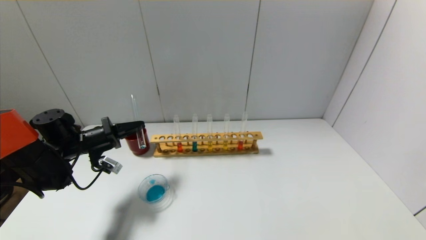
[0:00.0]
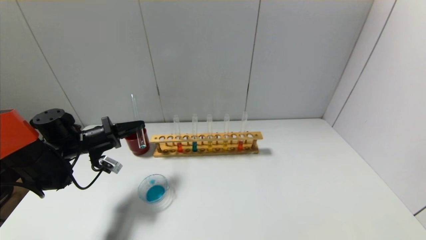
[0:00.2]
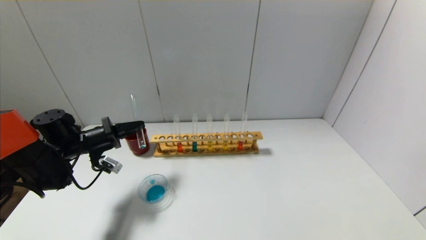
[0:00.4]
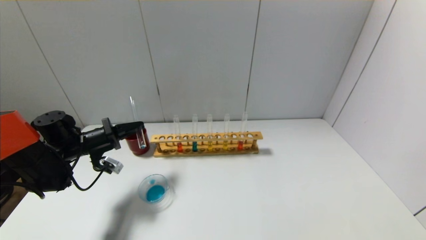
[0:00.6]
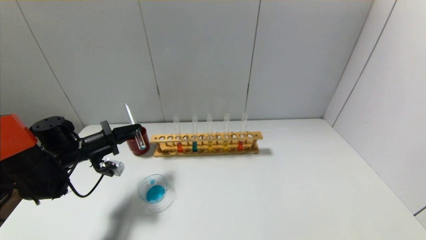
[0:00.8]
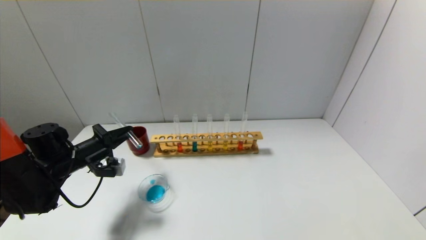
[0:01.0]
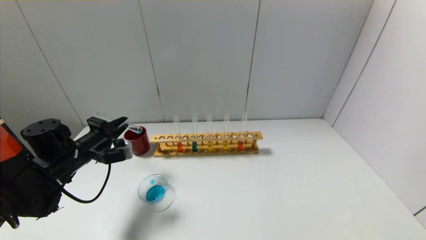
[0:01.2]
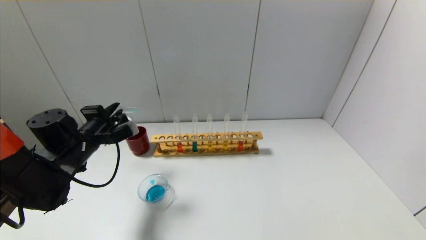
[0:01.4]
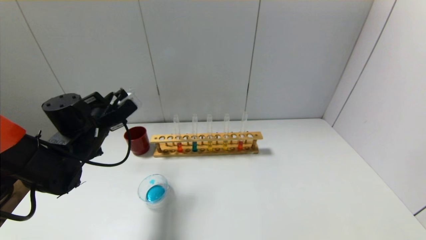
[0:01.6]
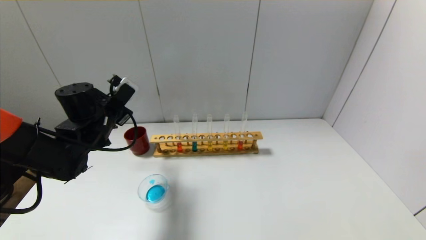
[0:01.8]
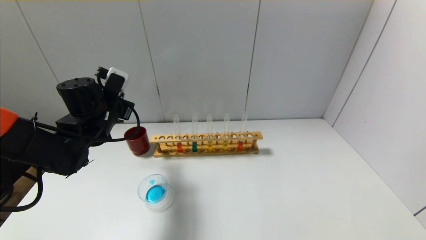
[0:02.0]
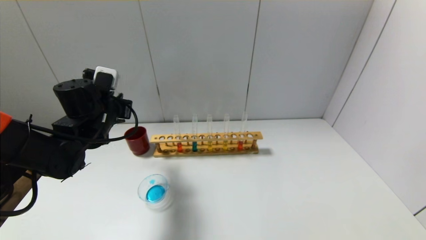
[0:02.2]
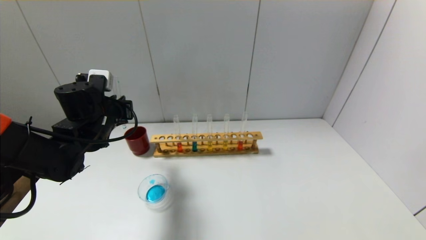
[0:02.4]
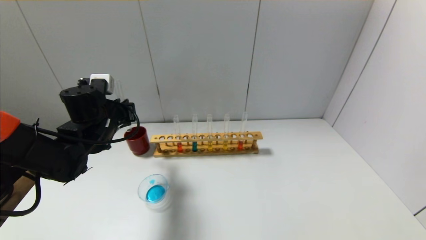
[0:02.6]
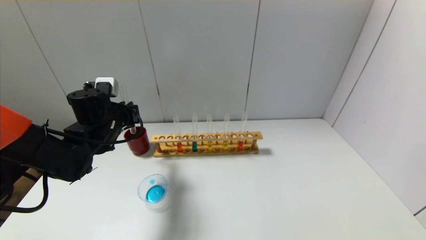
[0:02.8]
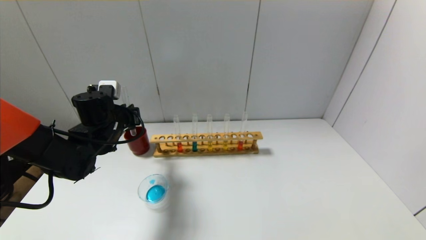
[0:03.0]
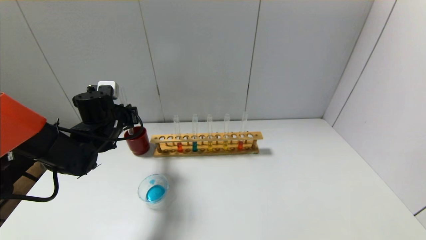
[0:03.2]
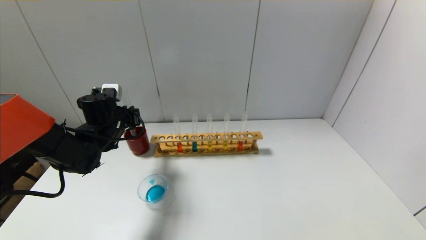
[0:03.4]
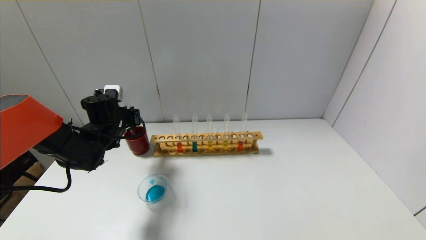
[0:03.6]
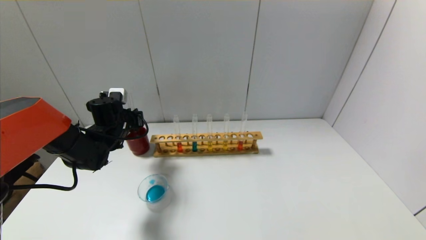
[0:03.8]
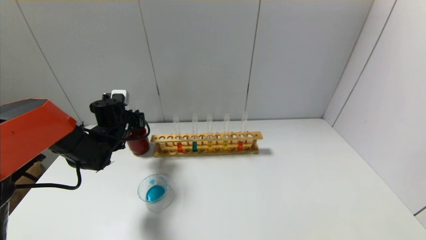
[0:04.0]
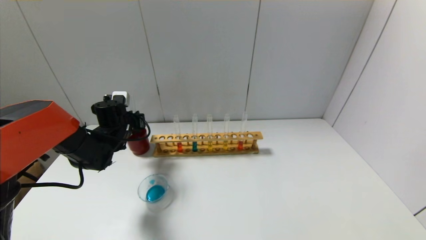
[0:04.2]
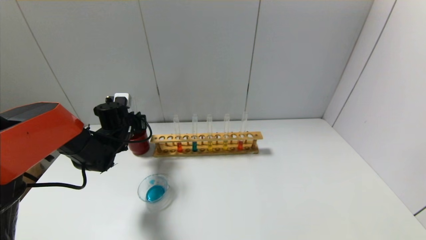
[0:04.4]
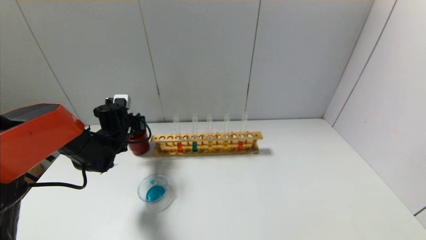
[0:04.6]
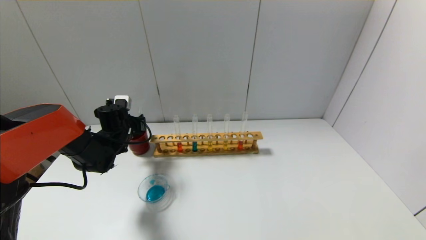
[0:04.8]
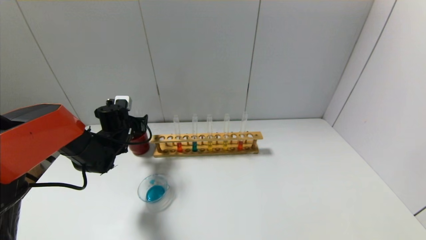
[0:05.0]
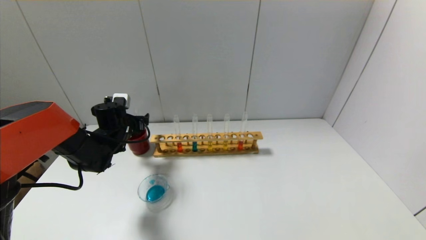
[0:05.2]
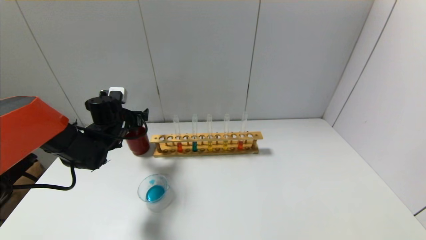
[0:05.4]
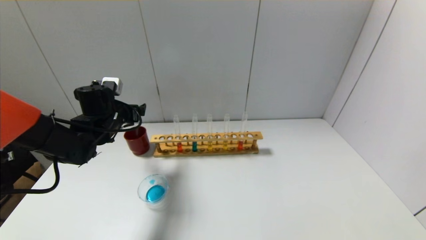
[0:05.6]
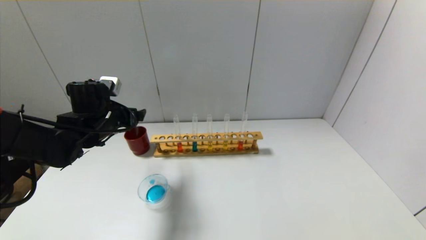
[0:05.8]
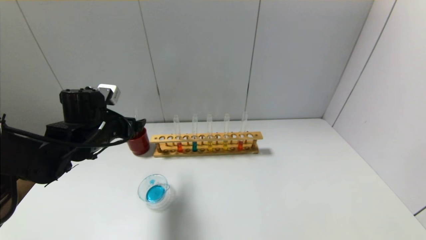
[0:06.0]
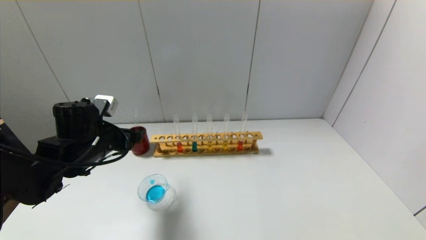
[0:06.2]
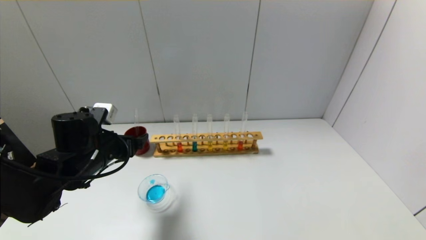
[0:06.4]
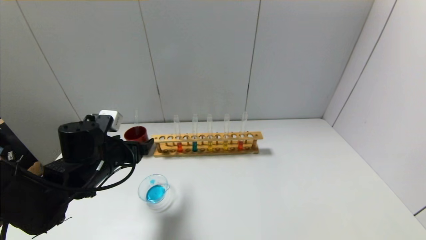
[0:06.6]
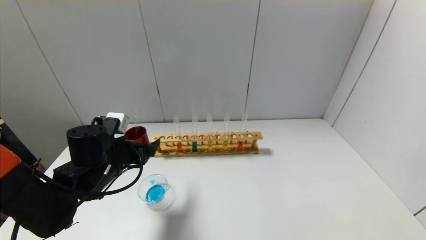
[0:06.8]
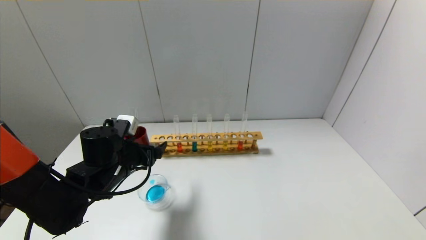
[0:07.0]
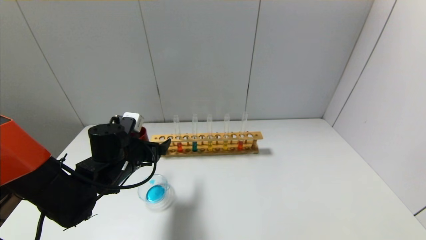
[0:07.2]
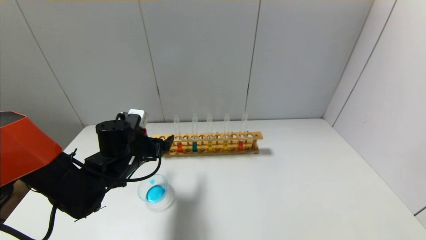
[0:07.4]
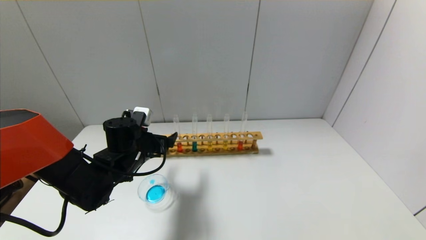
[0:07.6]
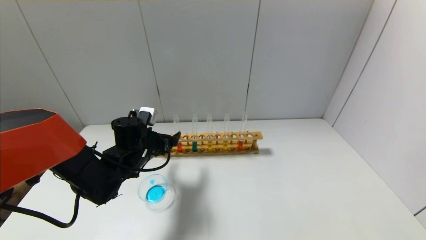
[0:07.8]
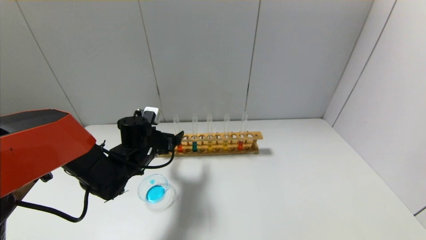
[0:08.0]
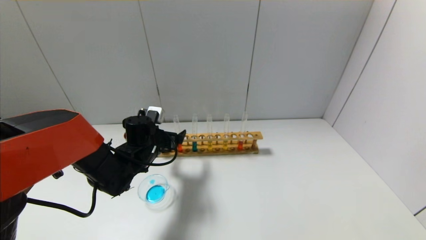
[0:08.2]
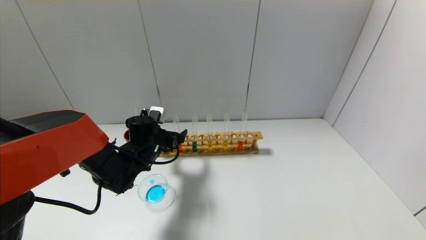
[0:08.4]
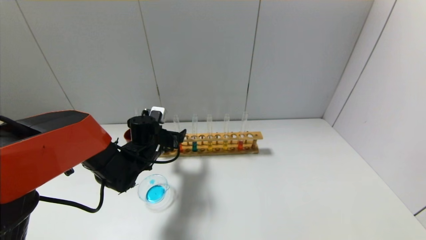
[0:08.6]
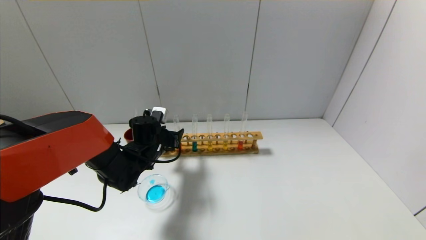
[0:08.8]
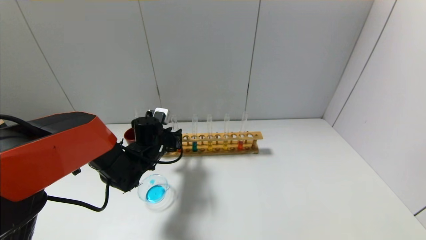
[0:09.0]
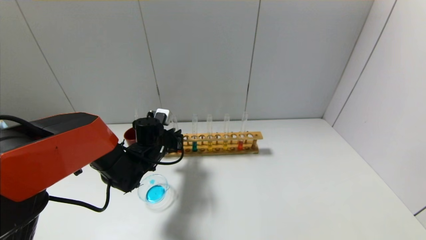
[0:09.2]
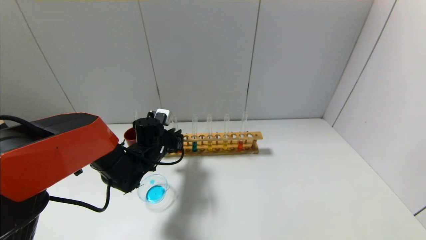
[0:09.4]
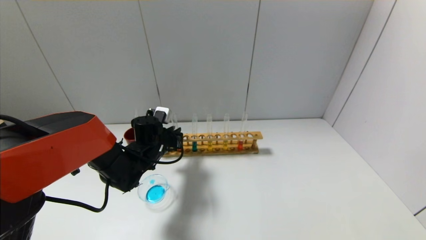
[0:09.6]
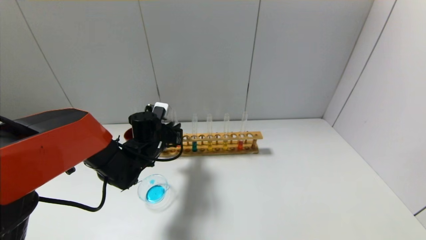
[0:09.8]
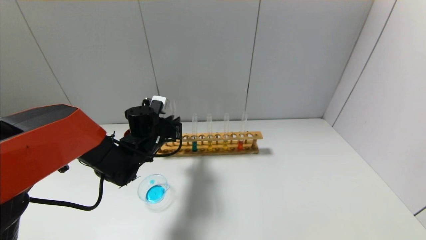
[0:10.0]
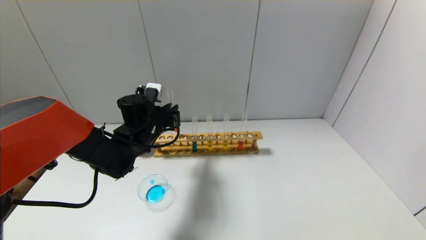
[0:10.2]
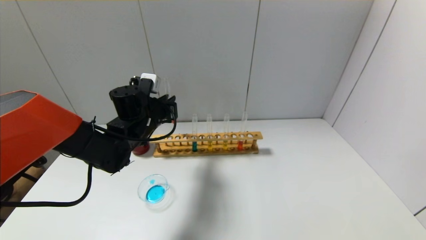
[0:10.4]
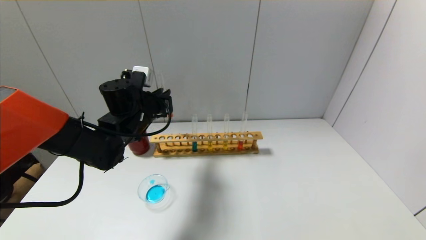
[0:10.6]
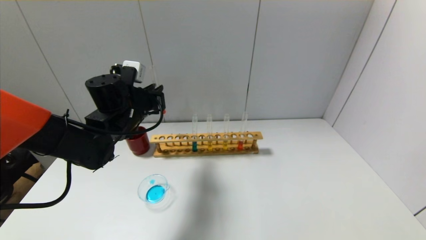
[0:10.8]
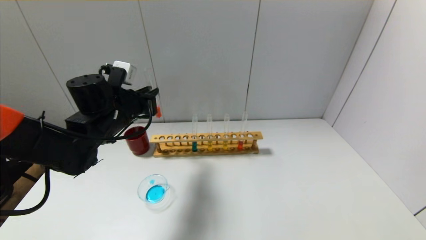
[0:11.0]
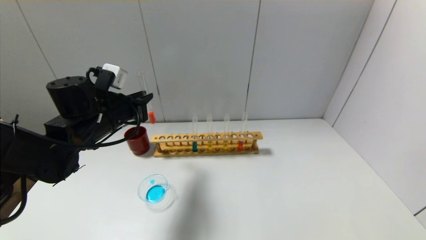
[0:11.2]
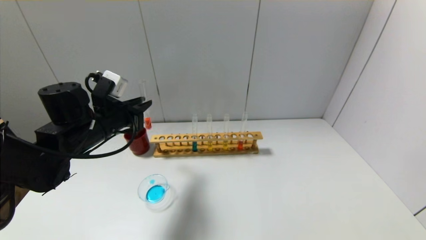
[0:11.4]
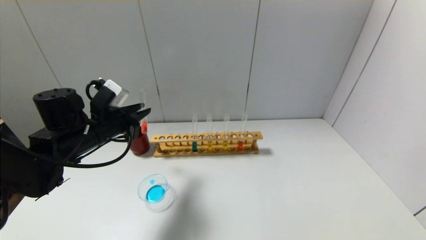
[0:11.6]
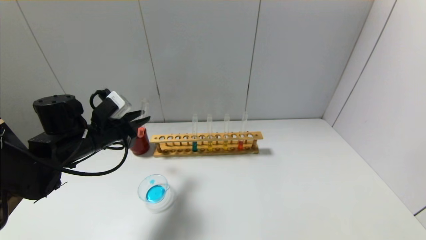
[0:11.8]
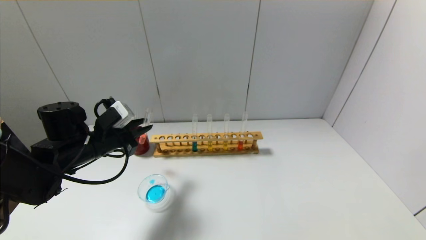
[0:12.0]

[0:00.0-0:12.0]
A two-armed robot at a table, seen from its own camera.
Step, 1.2 to 4.8 s: Place the test tube into the brown cup with the left gripper.
Step, 5.0 to 9.2 s: Grasp the red reagent with the left gripper.
0.0 to 1.6 s: The left gripper travels to the right and upward by about 10 cm.
3.0 to 4.4 s: The left gripper moves forward and downward, roughly 10 cm.
4.4 to 6.0 s: The left gripper is displaced backward and upward by about 15 cm, and opens up.
6.0 to 7.6 s: The left gripper heads downward and to the right, covering some 10 cm.
7.6 to 9.0 s: The left gripper heads forward, covering about 5 cm, and closes up.
9.0 to 10.4 s: The left gripper goes approximately 10 cm upward.
10.4 to 12.0 s: The left gripper heads to the left and backward, covering about 10 cm.

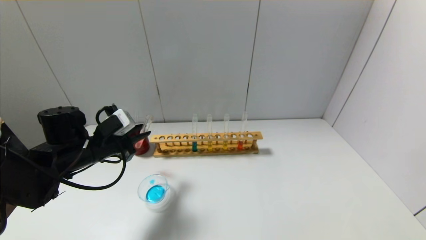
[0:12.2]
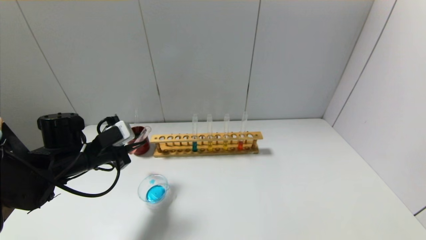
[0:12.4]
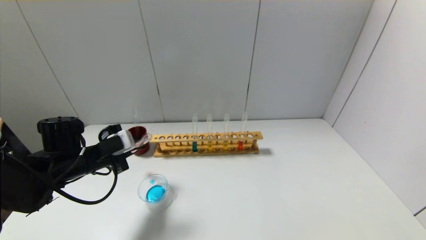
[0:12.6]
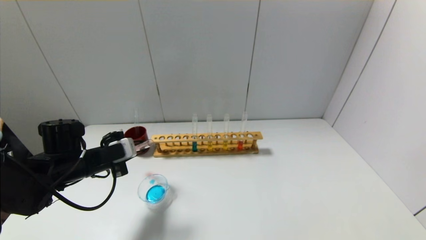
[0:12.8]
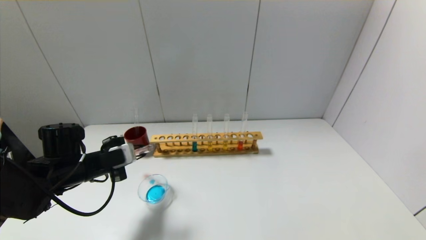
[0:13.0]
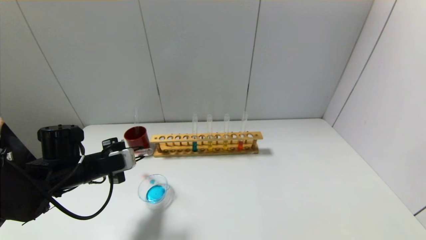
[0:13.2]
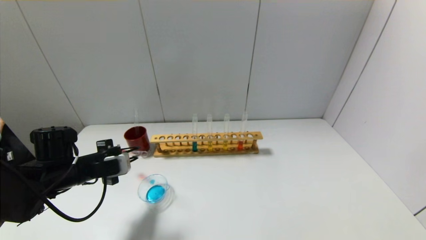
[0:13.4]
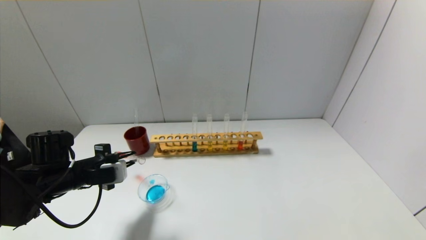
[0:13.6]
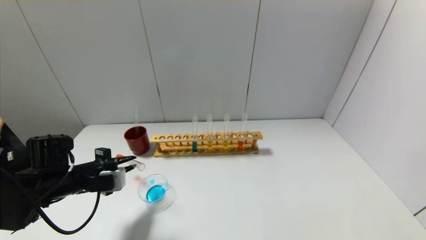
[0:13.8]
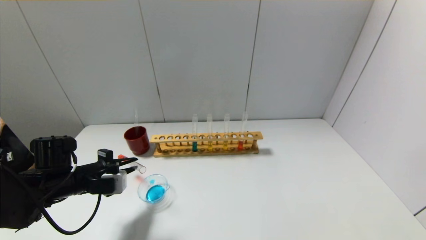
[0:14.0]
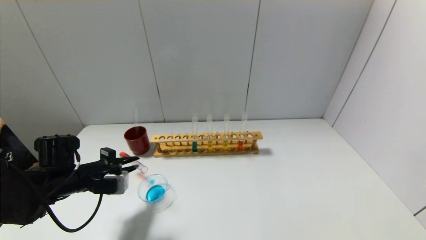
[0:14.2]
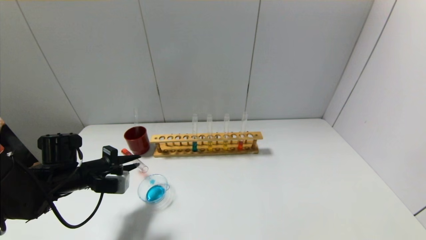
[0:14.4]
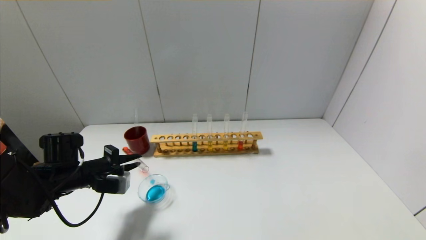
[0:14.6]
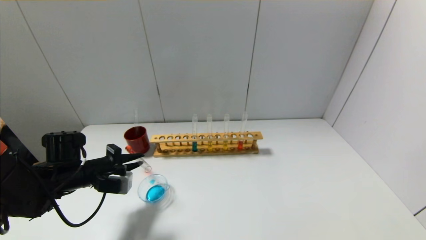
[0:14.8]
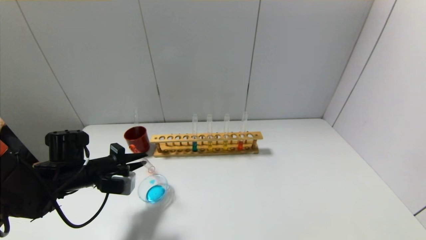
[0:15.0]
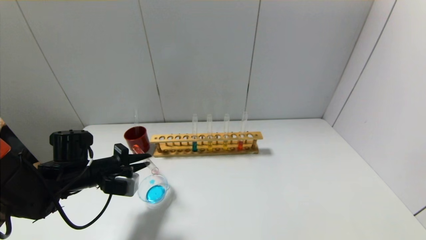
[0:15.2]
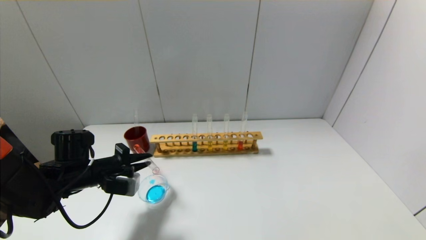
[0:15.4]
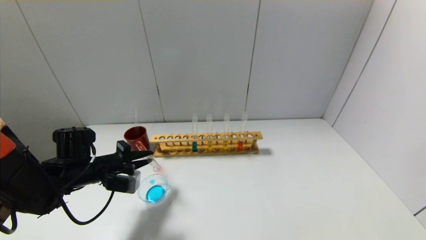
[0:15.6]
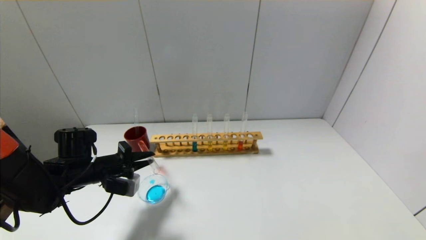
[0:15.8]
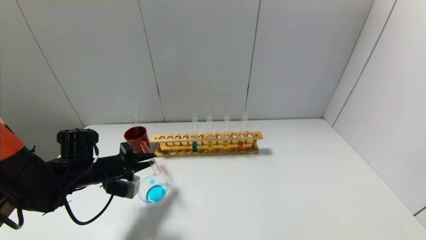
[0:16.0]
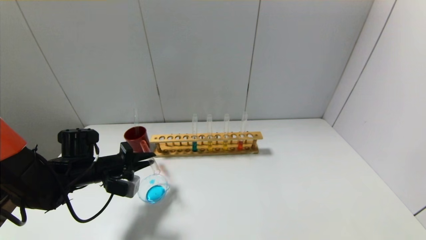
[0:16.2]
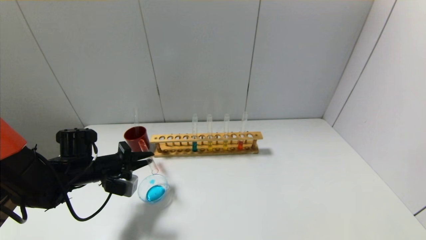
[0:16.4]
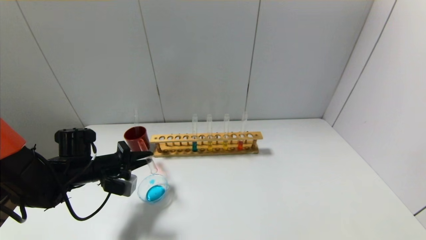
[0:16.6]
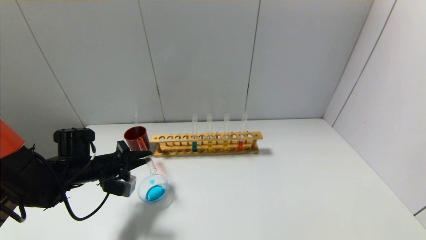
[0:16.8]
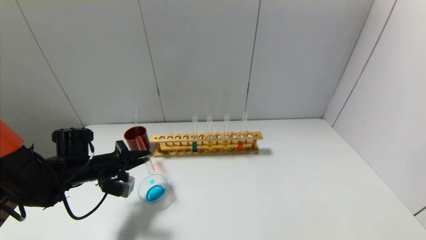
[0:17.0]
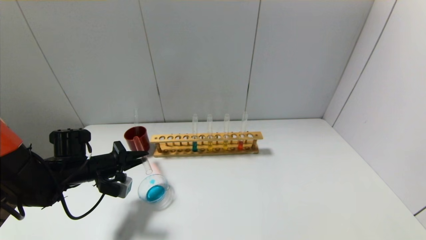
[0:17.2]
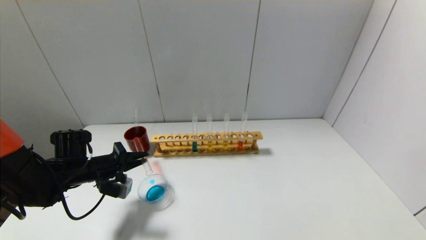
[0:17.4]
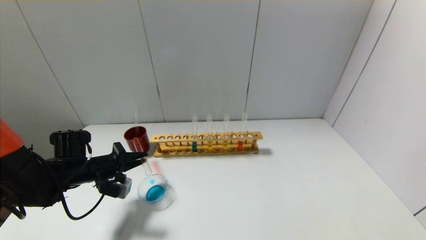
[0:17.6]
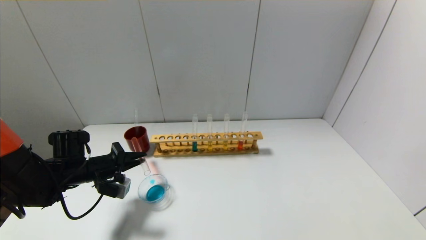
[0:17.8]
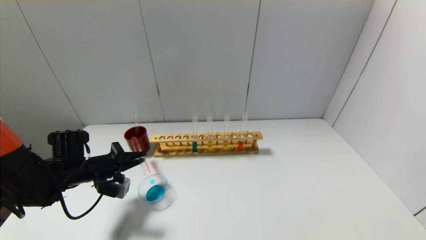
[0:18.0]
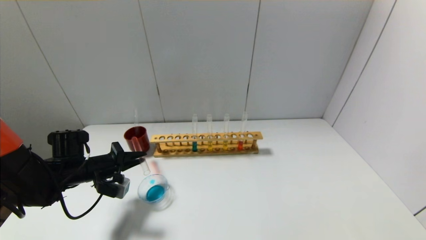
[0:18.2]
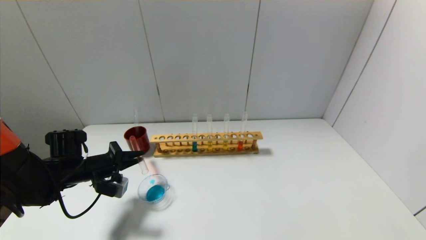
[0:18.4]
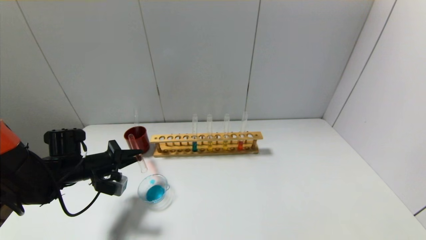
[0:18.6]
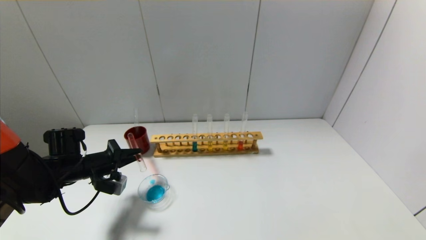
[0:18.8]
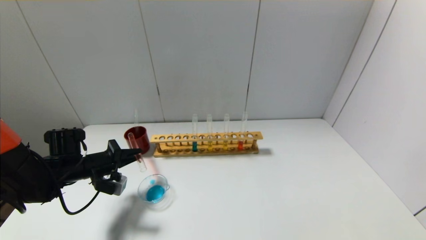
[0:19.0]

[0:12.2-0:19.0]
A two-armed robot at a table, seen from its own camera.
12.2 to 13.6 s: The left gripper moves approximately 5 cm.
13.6 to 15.0 s: There are only small adjustments of the grippers.
15.0 to 19.0 s: The grippers move only a little.
